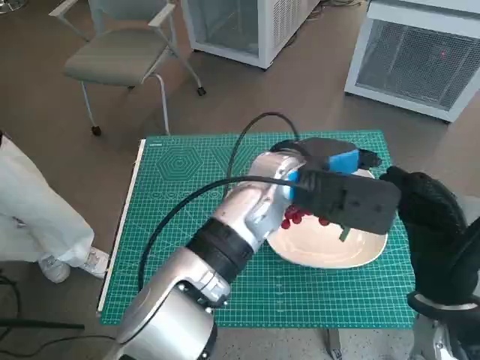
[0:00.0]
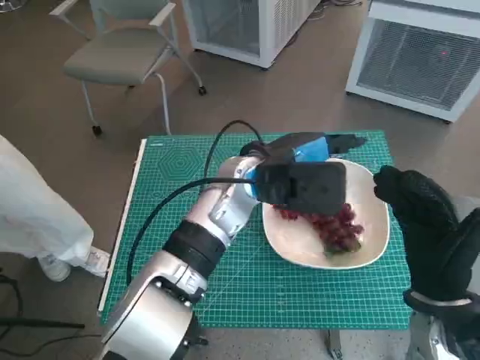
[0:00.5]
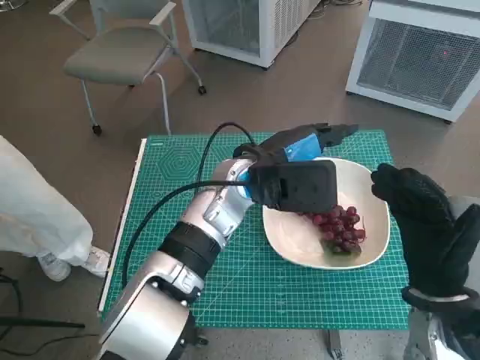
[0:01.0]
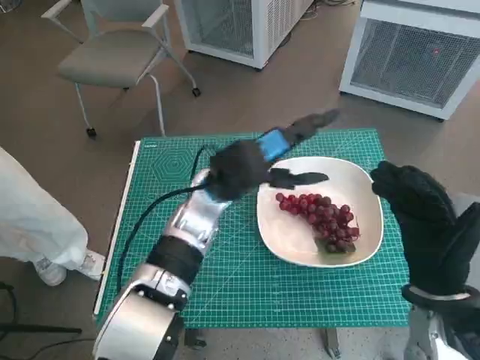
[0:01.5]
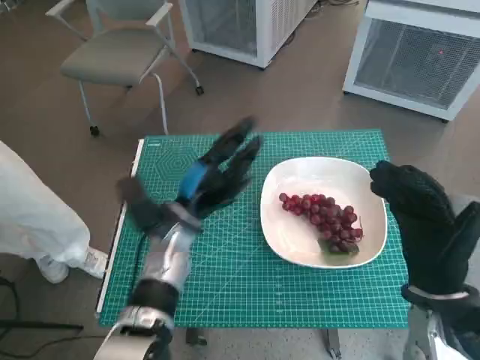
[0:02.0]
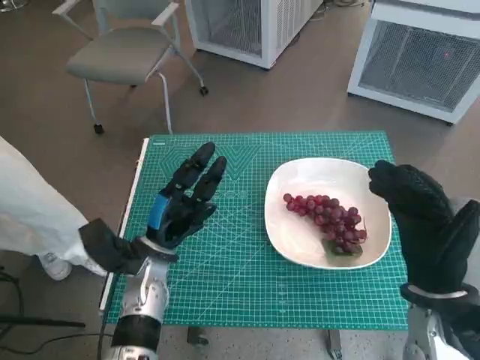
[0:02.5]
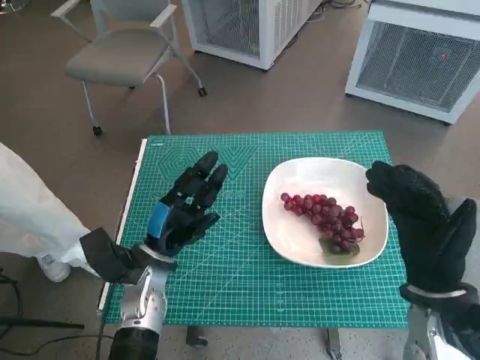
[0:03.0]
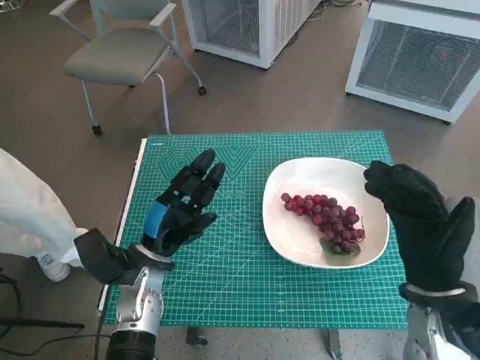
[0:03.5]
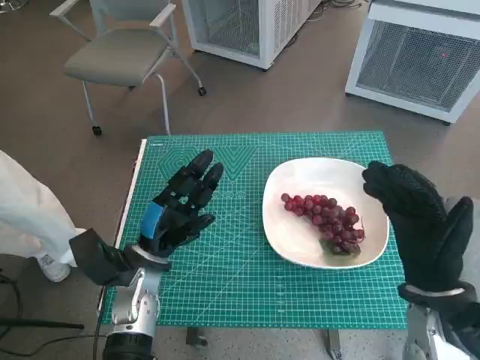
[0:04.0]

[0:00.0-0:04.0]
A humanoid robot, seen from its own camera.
Task of the whole recording: Pick up the grapes and put them on the plate.
0:00.0 to 0:02.0: The left hand heads to the left and downward, covering roughly 20 cm.
0:02.0 to 0:04.0: The left hand goes roughly 5 cm backward.
